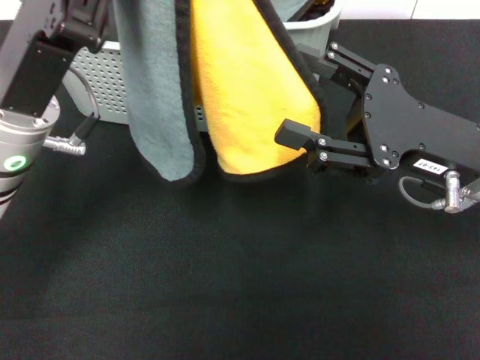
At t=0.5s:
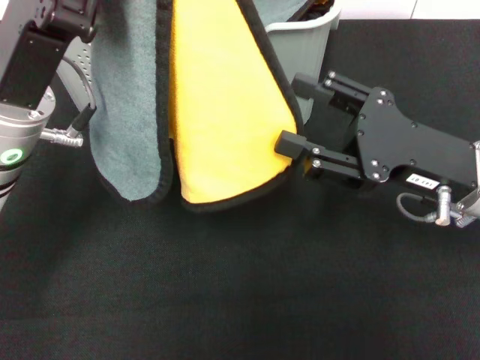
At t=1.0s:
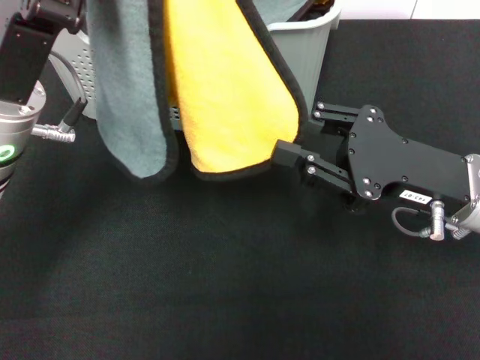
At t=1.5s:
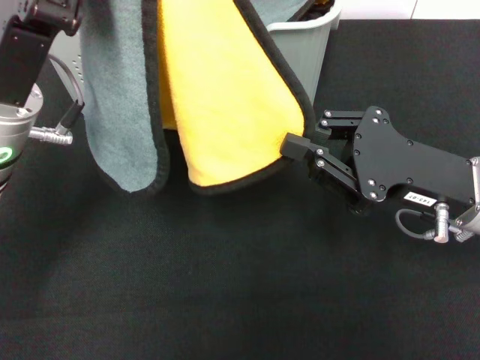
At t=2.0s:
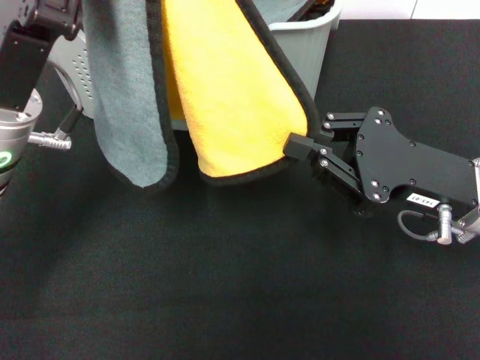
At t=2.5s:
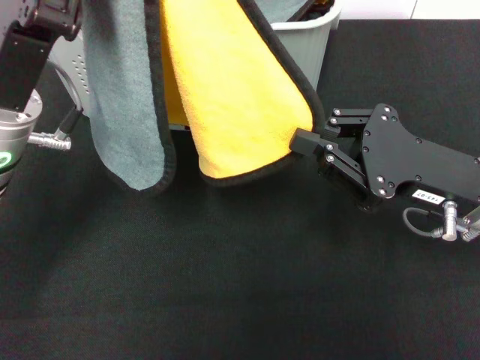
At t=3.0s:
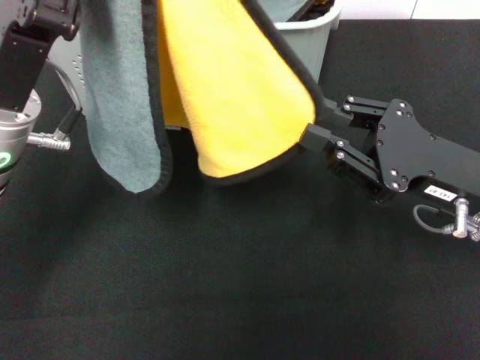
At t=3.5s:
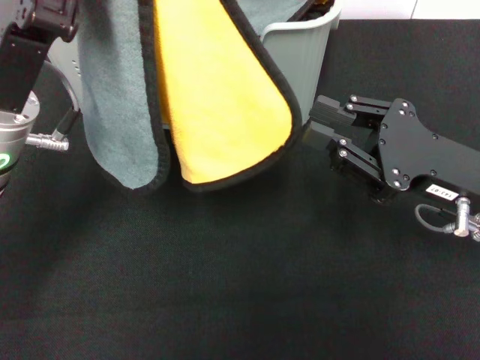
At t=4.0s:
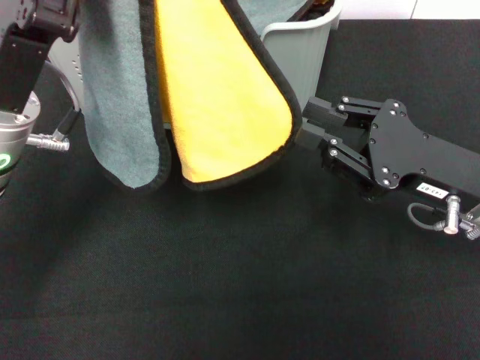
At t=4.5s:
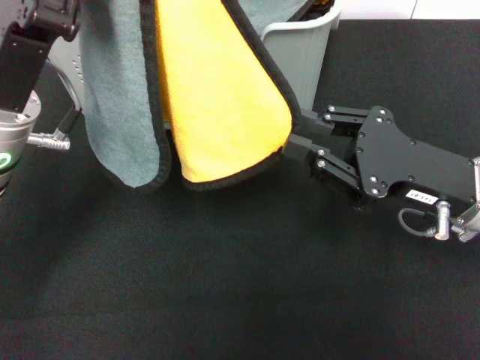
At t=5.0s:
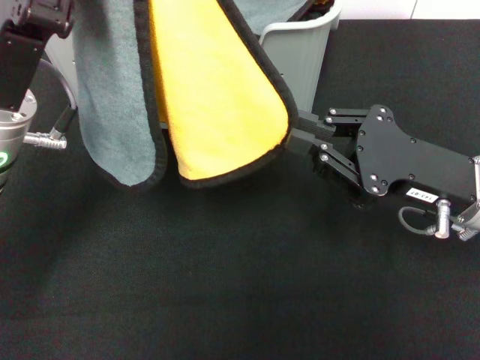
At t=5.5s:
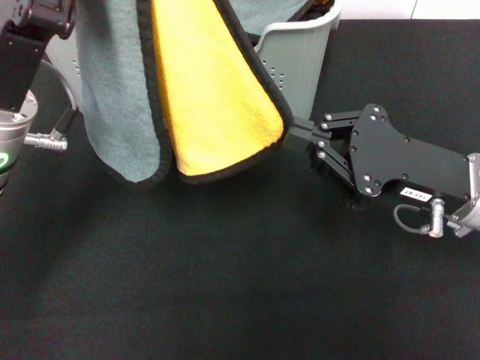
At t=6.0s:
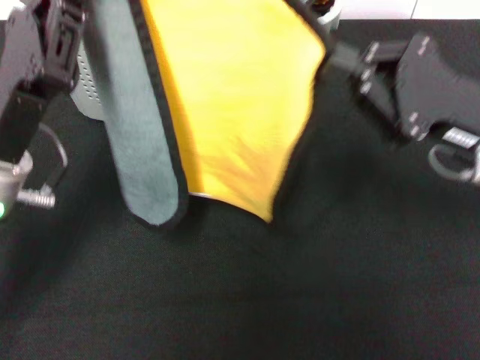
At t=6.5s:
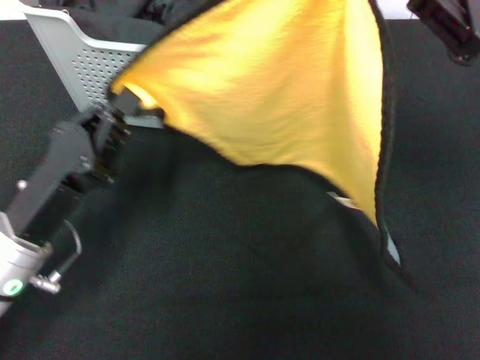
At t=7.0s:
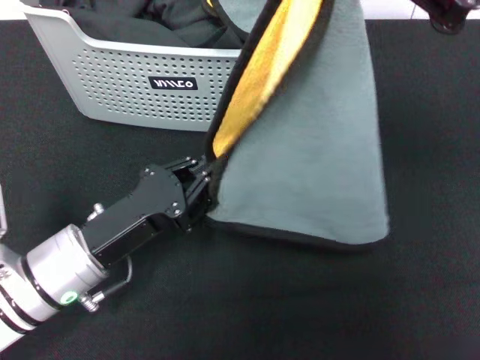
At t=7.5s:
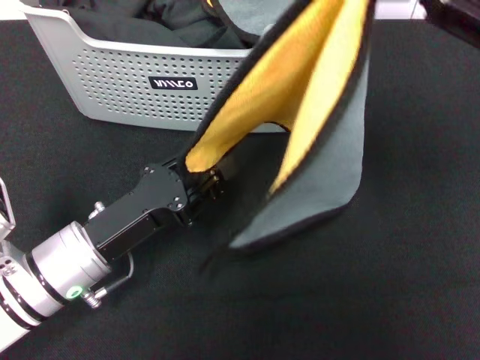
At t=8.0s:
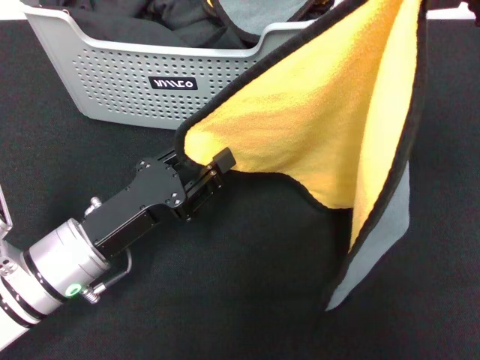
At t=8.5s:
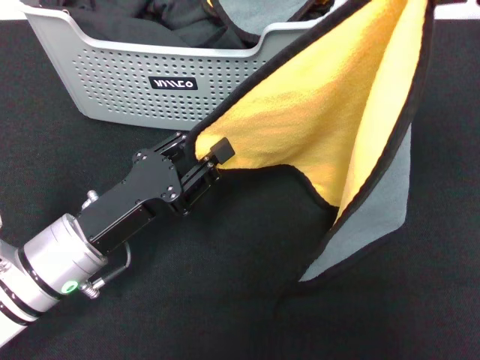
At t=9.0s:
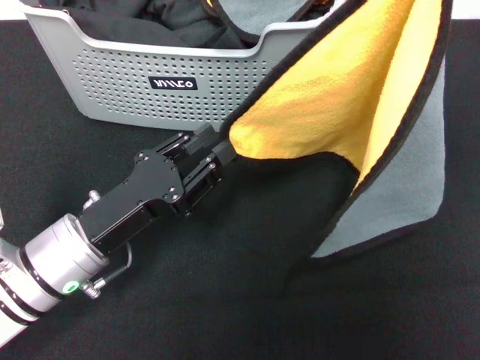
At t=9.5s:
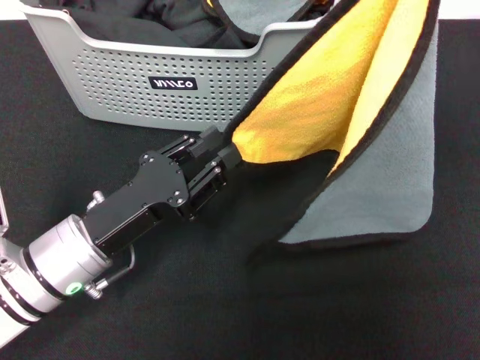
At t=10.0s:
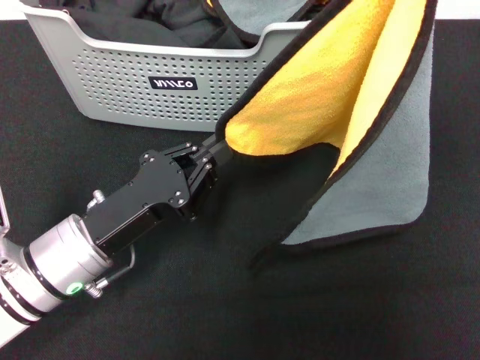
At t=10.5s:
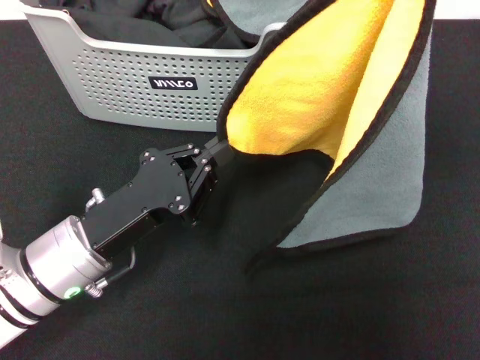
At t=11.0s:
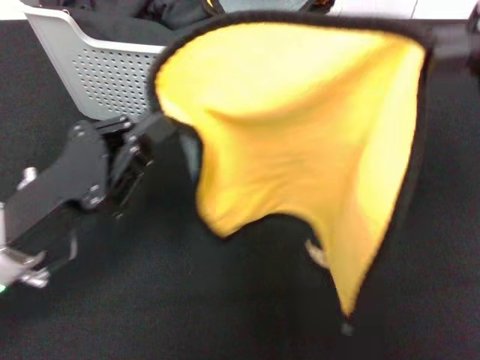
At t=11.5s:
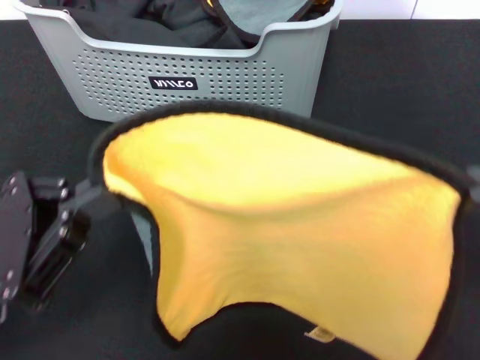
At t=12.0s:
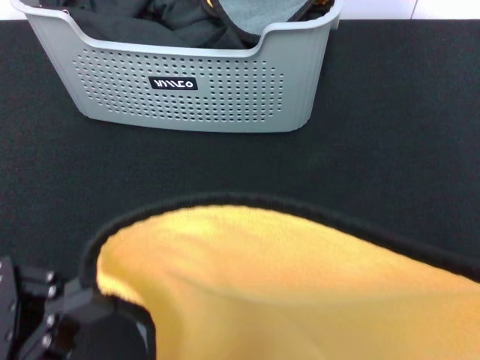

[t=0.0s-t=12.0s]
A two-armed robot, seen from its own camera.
Task of the whole recording: pick up the towel from the storage box and lay it flat on the black tablecloth.
Step, t=0.0s to t=5.5s: Spread the towel flat with the left gripper.
t=0.0s to t=2.0s: The right gripper closes.
t=2.0s to t=4.0s: The grippers move only a little.
t=4.0s to t=6.0s: The right gripper ends up about 5 cm from where it was, while the left gripper shifts by roughly 5 cm.
t=6.0s to t=8.0s: The left gripper moves downward, approximately 5 cm, and opens up, while the right gripper goes some 15 cm upward.
t=10.0s to t=12.0s: The right gripper heads backward and downward, covering roughly 15 cm, while the left gripper travels backward, to the left and upward by some 15 cm.

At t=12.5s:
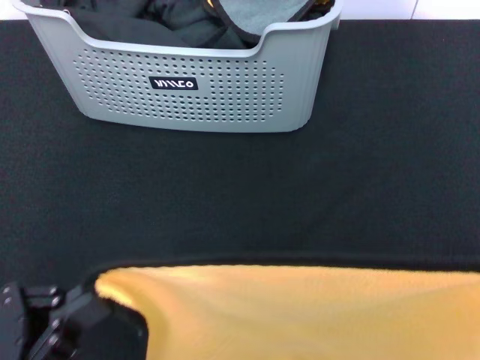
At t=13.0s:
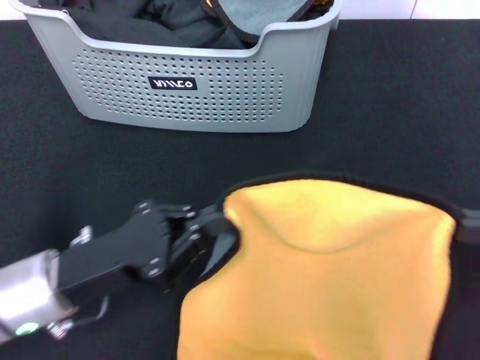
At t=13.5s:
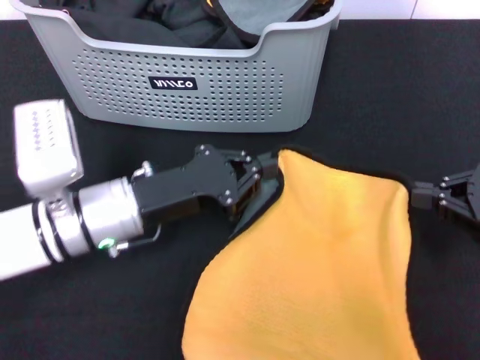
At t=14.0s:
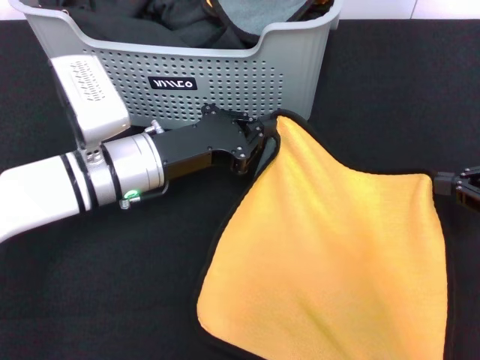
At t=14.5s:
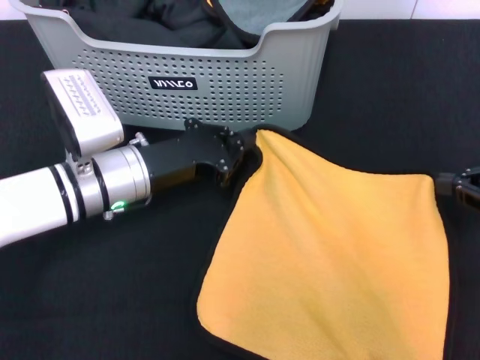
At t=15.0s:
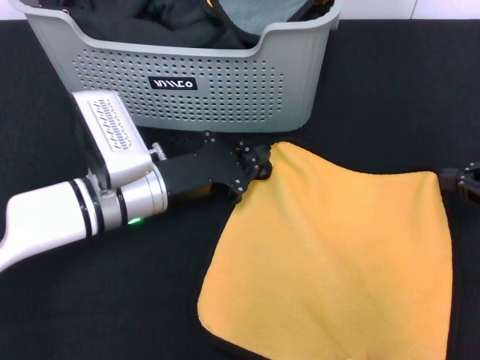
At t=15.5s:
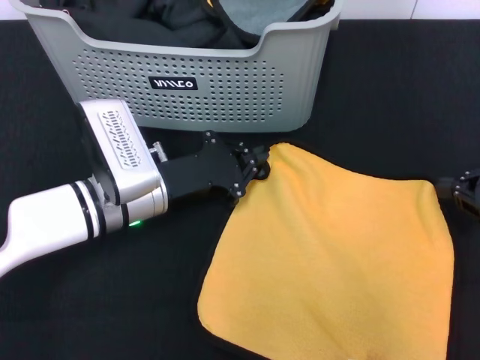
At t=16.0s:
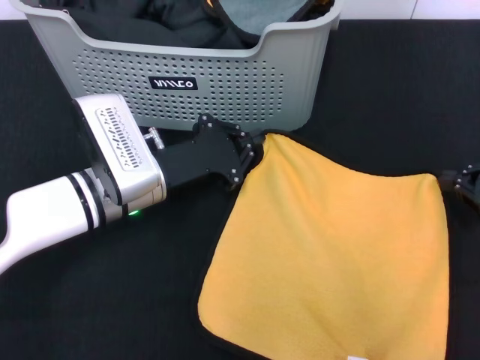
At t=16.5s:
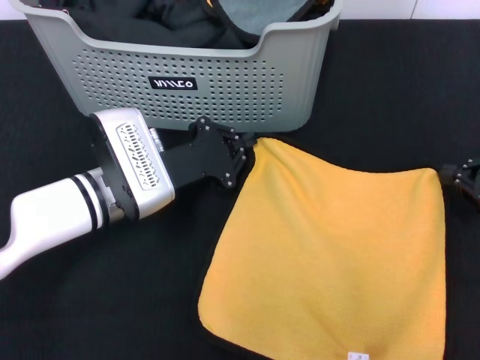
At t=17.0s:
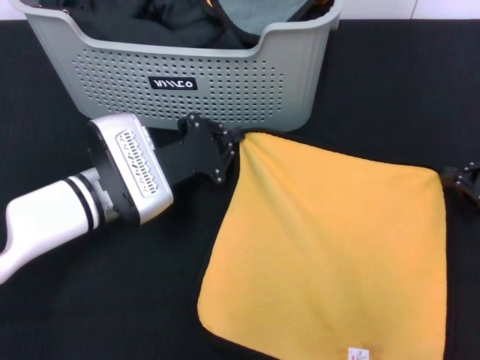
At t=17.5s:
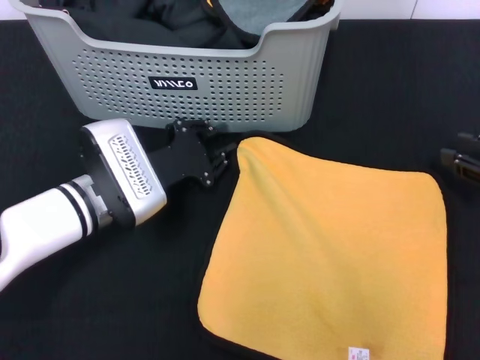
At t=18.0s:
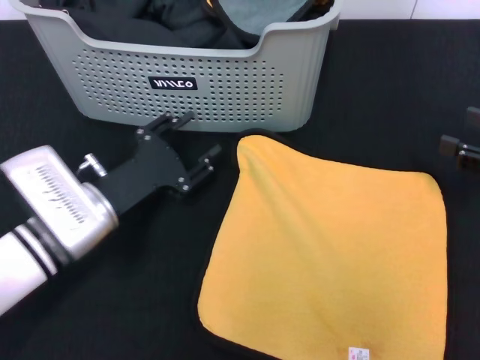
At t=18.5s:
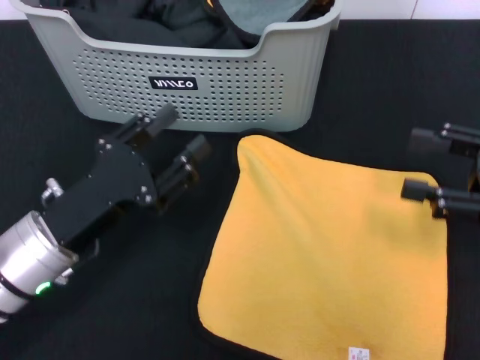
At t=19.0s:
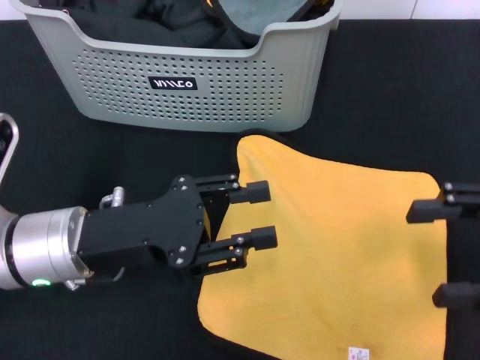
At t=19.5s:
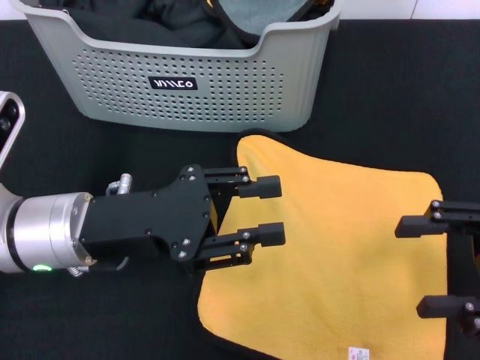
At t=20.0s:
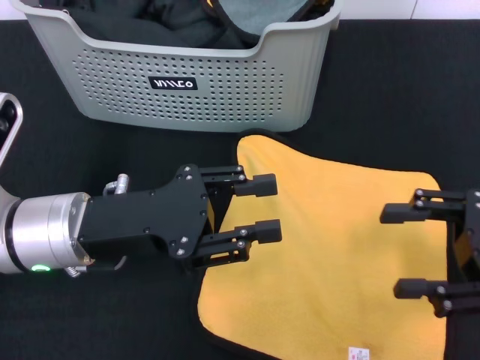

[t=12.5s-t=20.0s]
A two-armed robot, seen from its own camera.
Task of the whole recording: pick up the towel from the storage box and lay it flat on the black tablecloth.
Step, t=12.5s to t=17.0s: Spread the towel flat with the right gripper.
t=12.5s to t=14.5s: The left gripper is displaced forward by some 25 cm, while the right gripper shifts about 15 cm forward and downward.
t=16.5s to t=18.0s: The right gripper opens. The left gripper changes place by approximately 5 cm, and opens.
t=18.0s to t=20.0s: The left gripper is displaced upward by approximately 5 cm; the right gripper moves to the left, roughly 5 cm.
